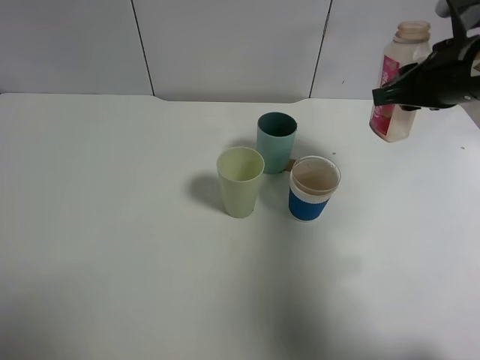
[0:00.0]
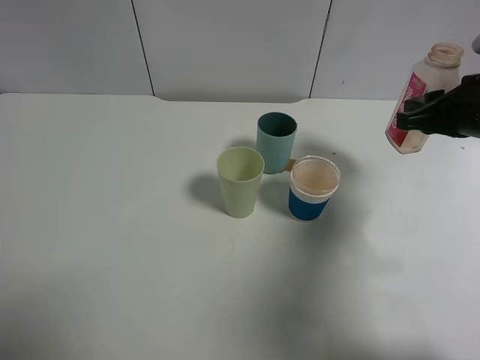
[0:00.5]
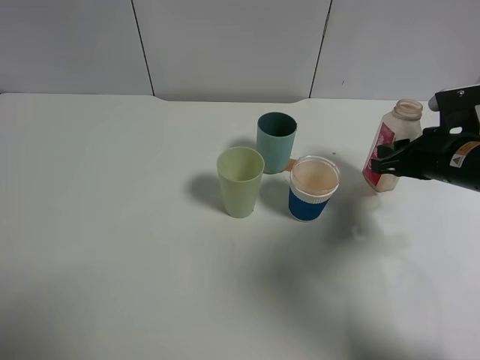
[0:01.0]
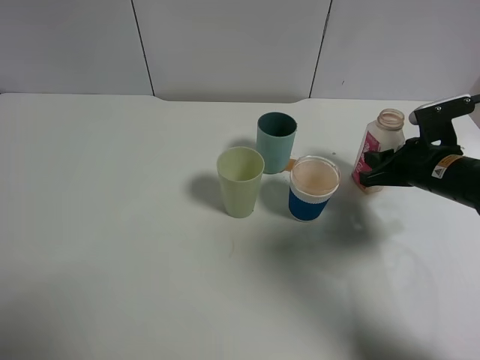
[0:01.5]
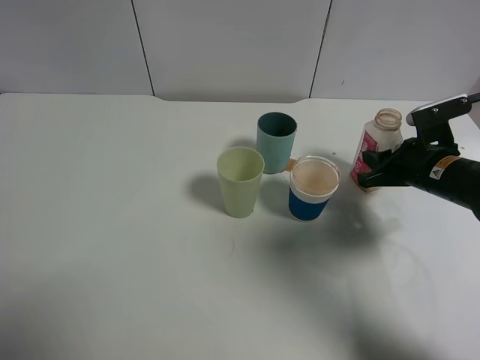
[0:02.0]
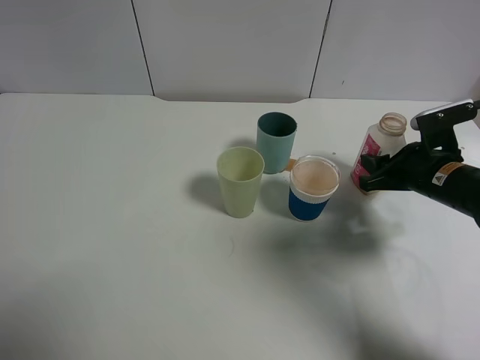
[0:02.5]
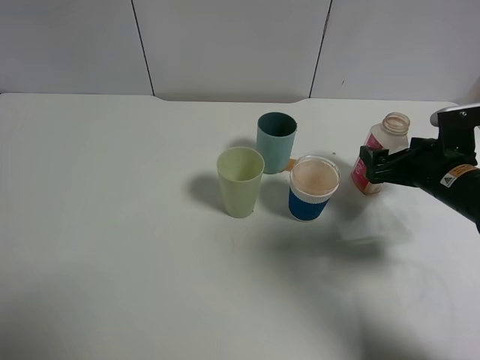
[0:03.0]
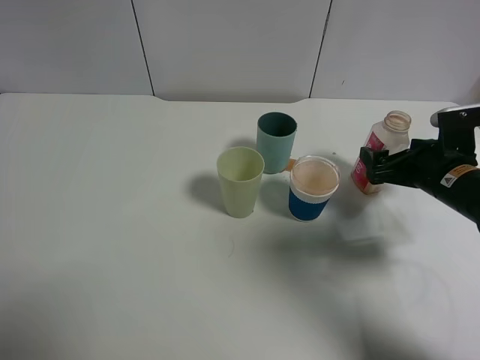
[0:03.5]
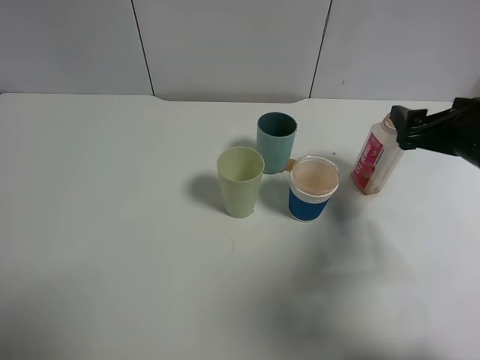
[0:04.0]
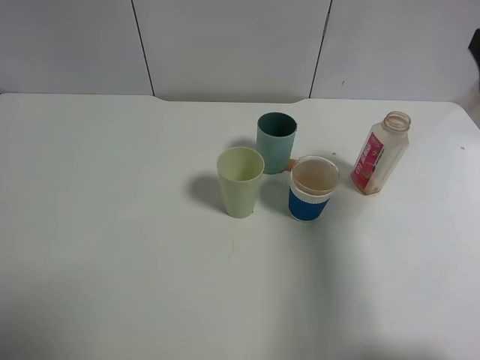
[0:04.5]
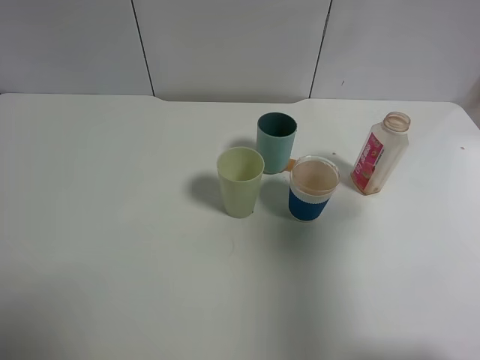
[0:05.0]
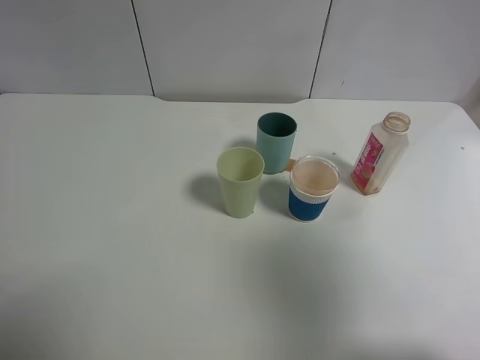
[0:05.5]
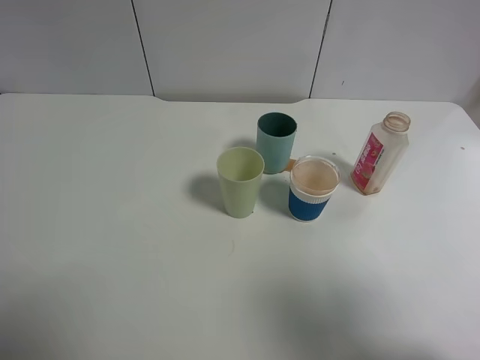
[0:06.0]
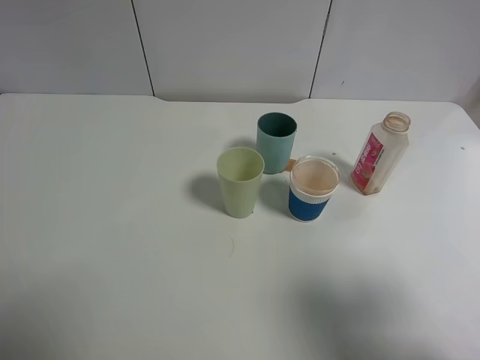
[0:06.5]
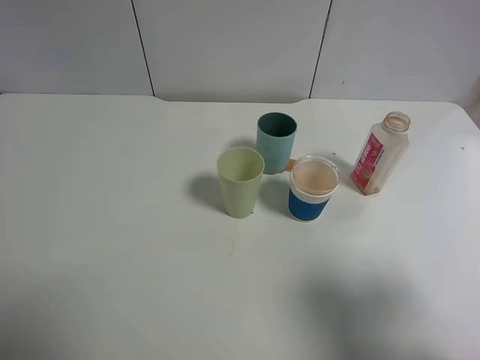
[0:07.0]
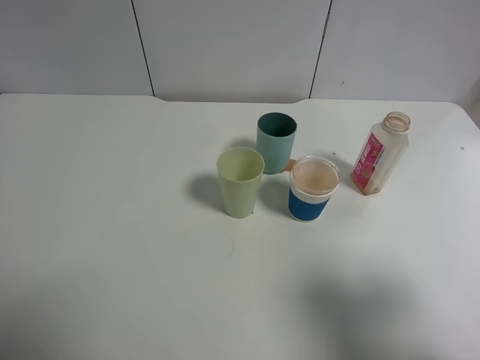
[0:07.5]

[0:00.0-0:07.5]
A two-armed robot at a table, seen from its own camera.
Task of the whole recording: use a gripper to hold the bottle of the drink and pour it into a random cup.
Step, 0:00.0 to 0:03.5: Place the cranberry juice bottle on the table with the right gripper.
0:00.0 to 0:02.0: The right gripper is displaced downward by approximately 15 cm.
0:02.0 to 0:04.0: The right gripper travels upward by about 10 cm, and opens its fingers.
0:04.0 to 0:05.5: The right gripper goes roughly 30 cm backward and upward.
0:05.5 to 0:07.5: The right gripper heads downward, covering some 10 cm.
